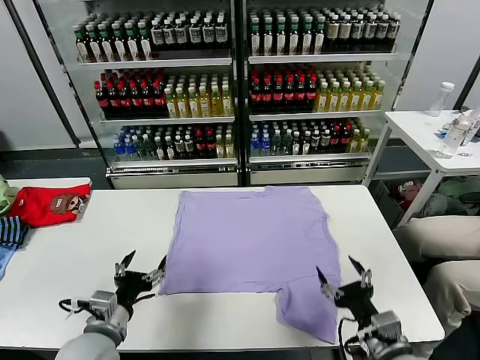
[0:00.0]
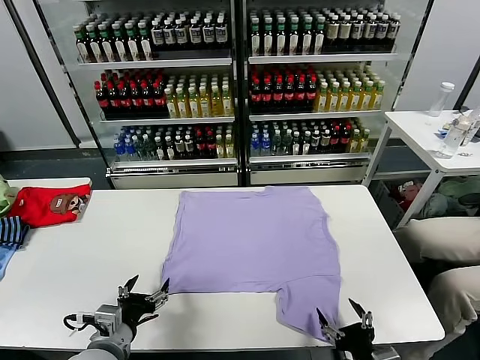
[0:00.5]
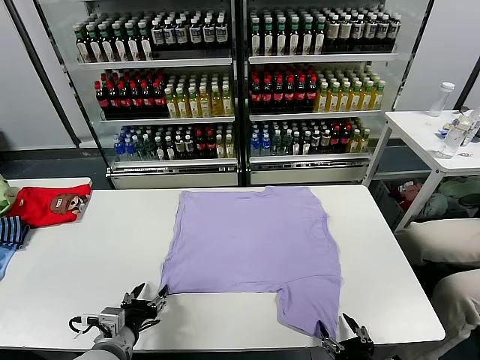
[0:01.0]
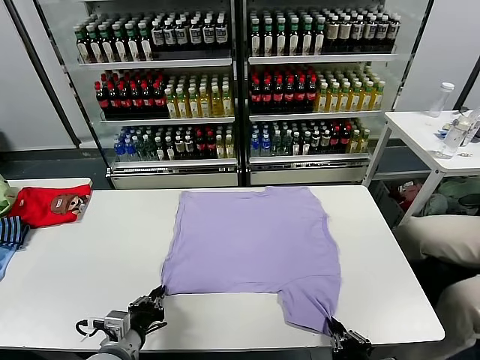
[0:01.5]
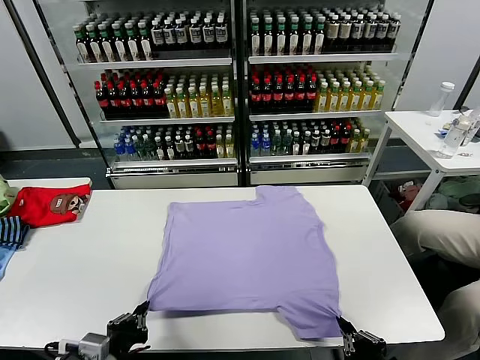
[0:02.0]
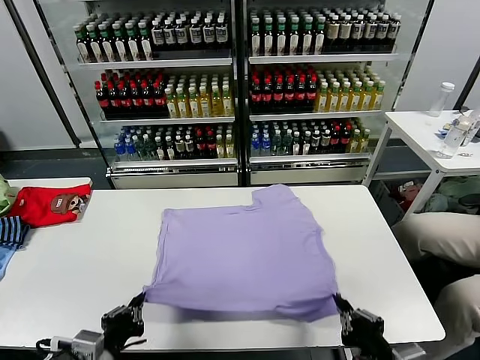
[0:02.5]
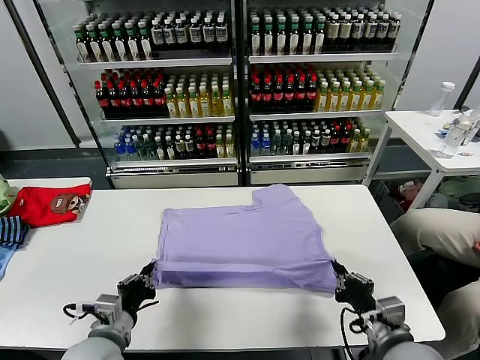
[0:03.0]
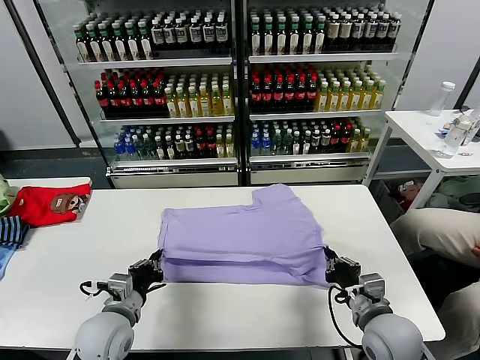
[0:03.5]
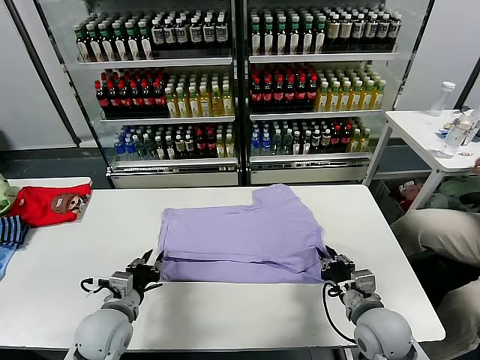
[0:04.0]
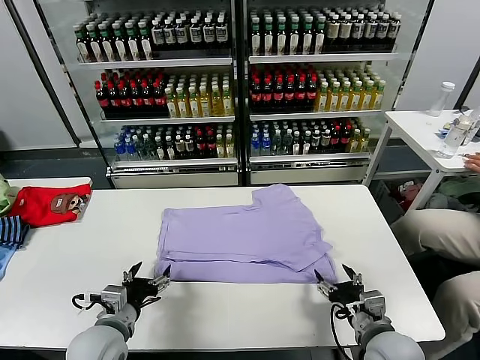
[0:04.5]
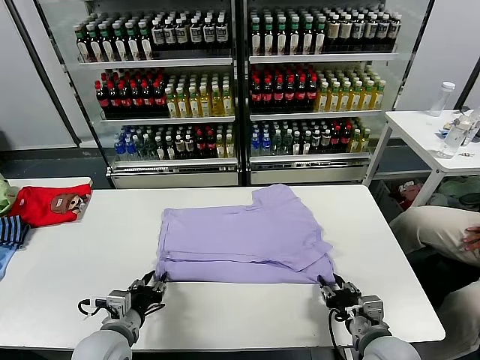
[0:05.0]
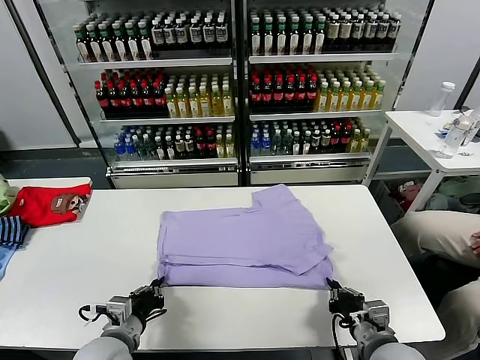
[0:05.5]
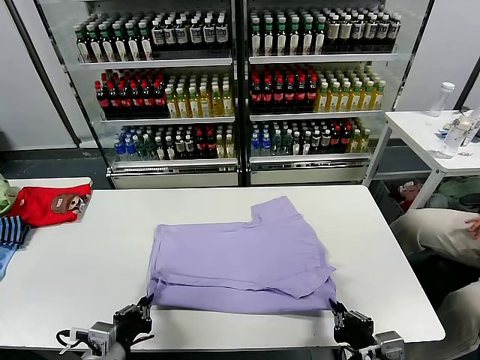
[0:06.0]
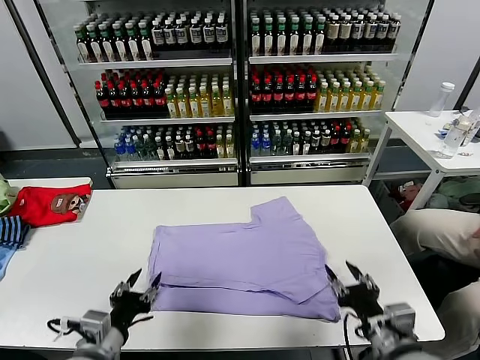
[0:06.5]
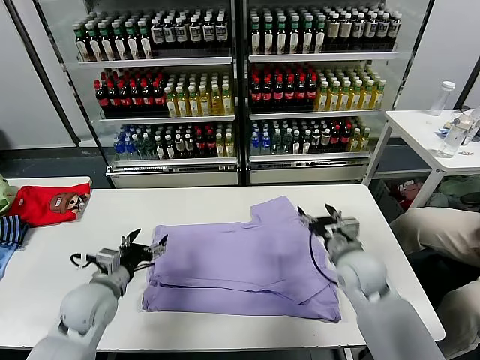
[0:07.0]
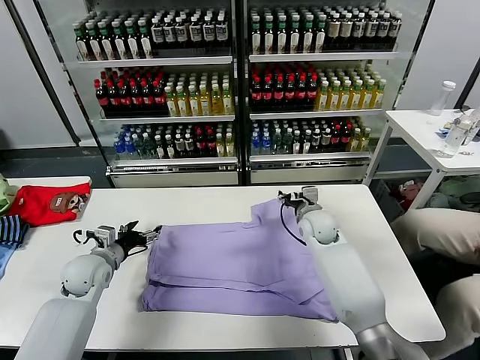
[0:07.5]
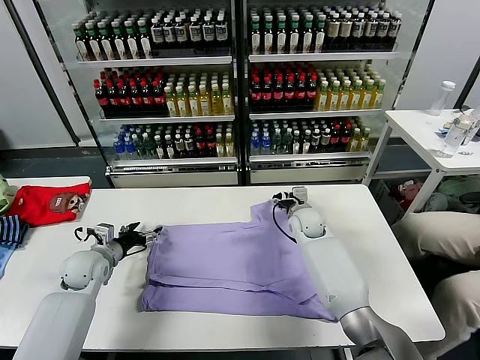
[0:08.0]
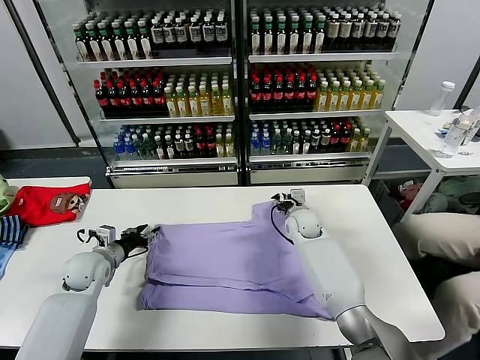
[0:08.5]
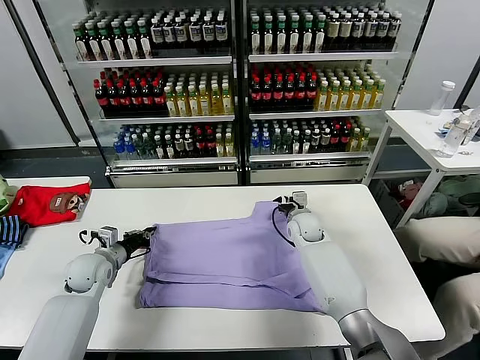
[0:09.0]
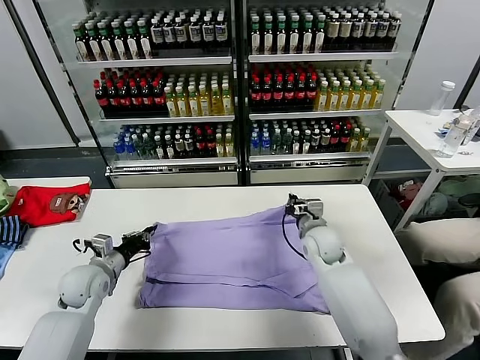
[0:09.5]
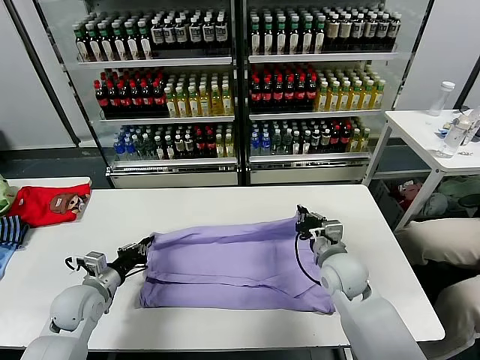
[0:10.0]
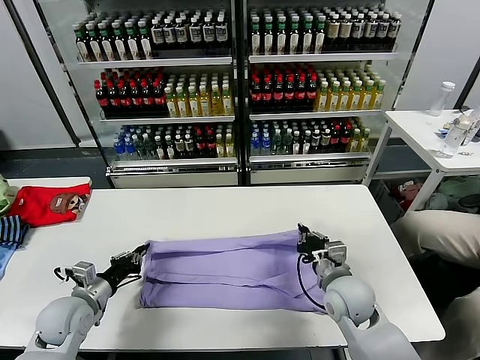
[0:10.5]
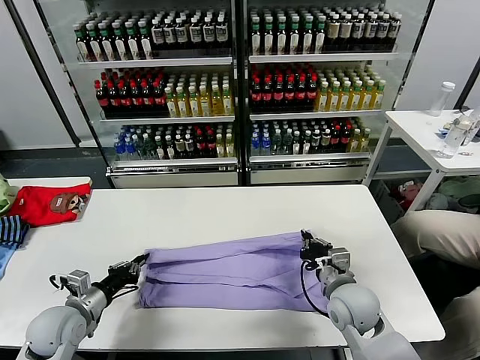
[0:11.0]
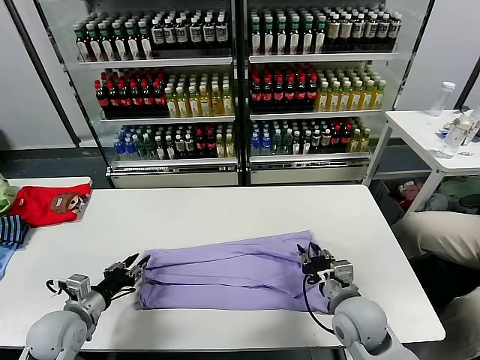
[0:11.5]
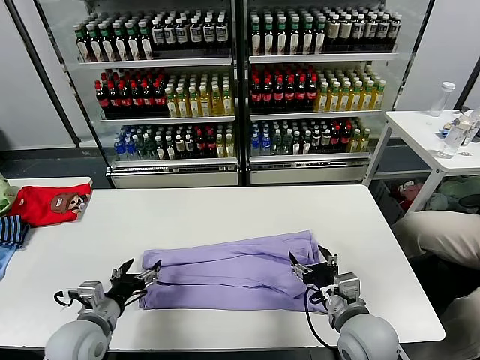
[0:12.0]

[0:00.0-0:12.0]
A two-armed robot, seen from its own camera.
Task of the whole recording: fold and organize the clothes.
Step, 0:00.0 to 0:01.5: use both grippers simultaneously to clamp the lower edge of the clothing fabric.
Step, 0:02.0 to 0:04.0: use both grippers to drag the lower edge of the fabric forward and fold it over the upper edge.
Step, 0:04.5 to 0:06.5: Drag the clothes downward with both gripper.
Step, 0:07.0 to 0:09.0: use both grippers simultaneously to clamp the upper edge of the clothing fabric.
Step, 0:09.5 to 0:11.5: use both grippers to drag the upper edge of the fabric backward and fold it over the lower edge.
0:02.0 to 0:04.0: The two grippers go roughly 15 cm forward. The right gripper opens up; the left gripper opens its fingers.
0:04.0 to 0:06.0: Both grippers travel together backward, approximately 10 cm. The right gripper opens, then closes once more, while the left gripper closes its fingers.
0:06.0 to 0:08.0: The left gripper moves forward and to the left, some 30 cm, and opens, while the right gripper heads forward, covering roughly 40 cm, and opens its fingers.
0:08.0 to 0:10.0: The right gripper shifts some 20 cm backward, and closes; the left gripper is displaced backward by roughly 10 cm, and closes.
0:10.0 to 0:12.0: The left gripper travels backward by some 10 cm, and opens its fingers. Meanwhile the right gripper travels backward by approximately 15 cm, and opens up.

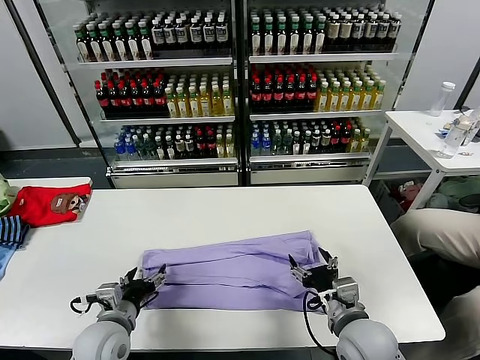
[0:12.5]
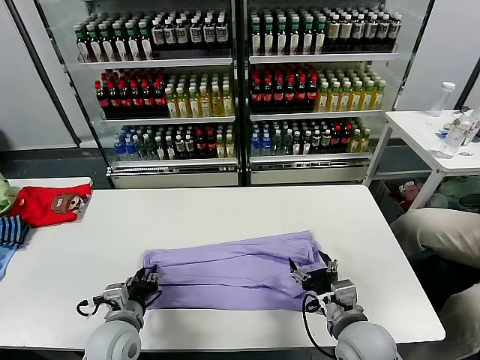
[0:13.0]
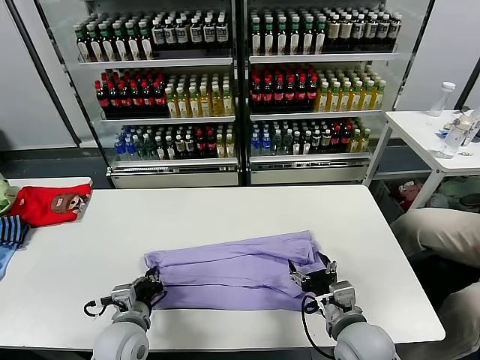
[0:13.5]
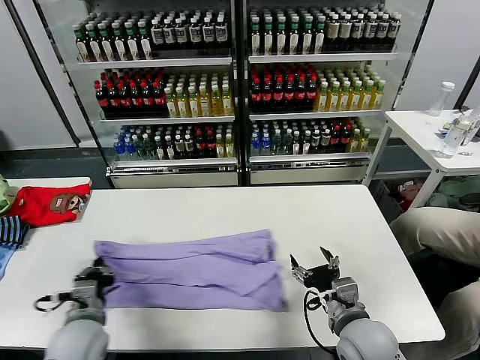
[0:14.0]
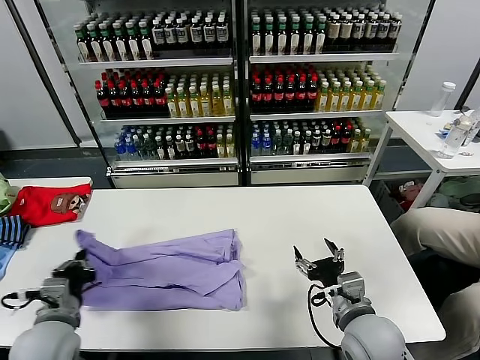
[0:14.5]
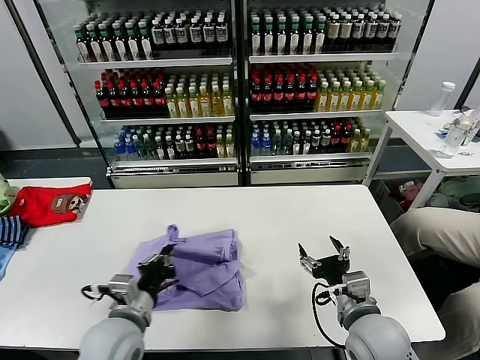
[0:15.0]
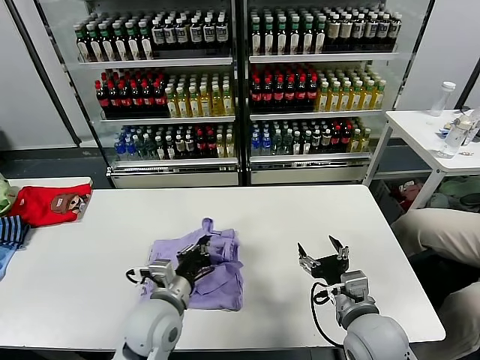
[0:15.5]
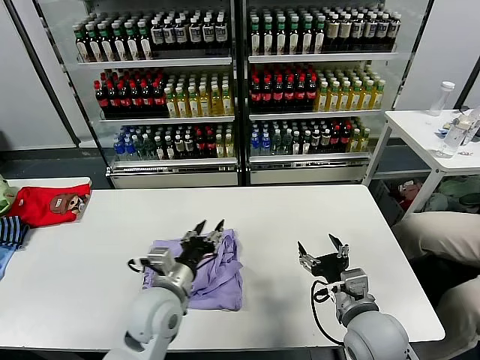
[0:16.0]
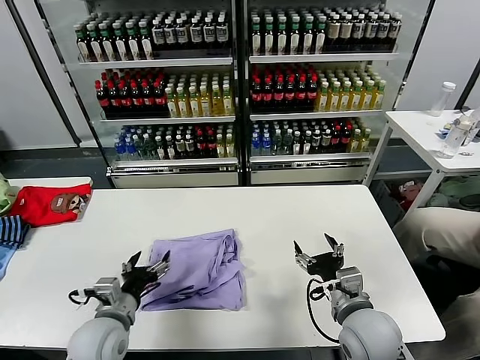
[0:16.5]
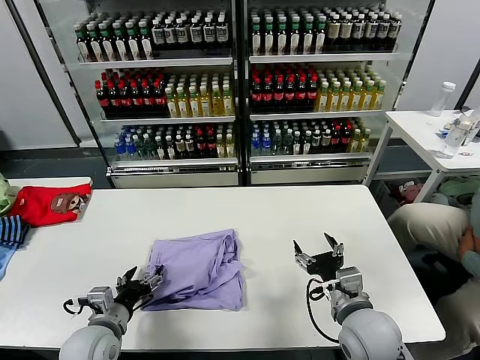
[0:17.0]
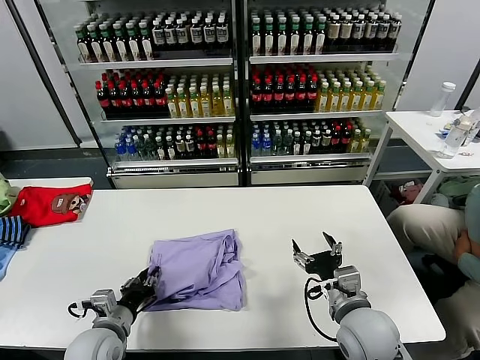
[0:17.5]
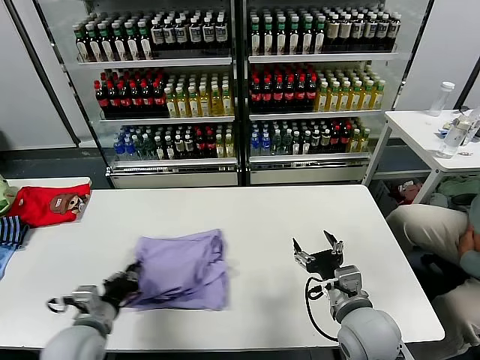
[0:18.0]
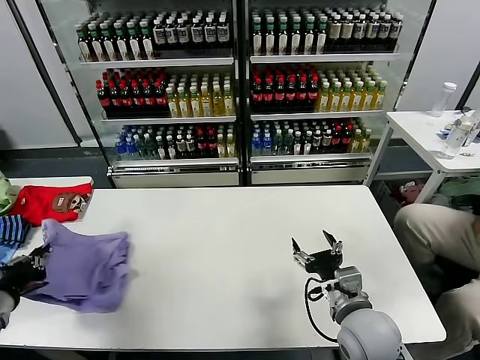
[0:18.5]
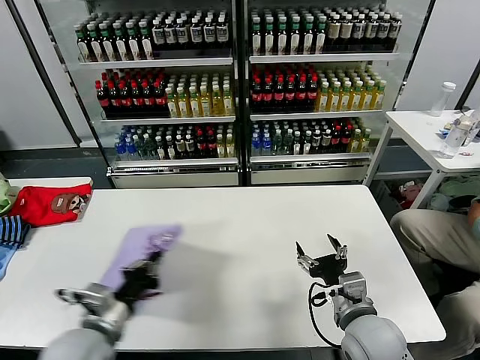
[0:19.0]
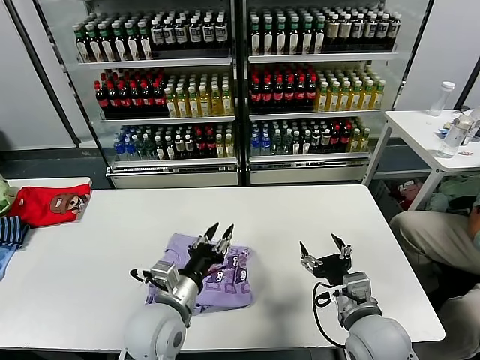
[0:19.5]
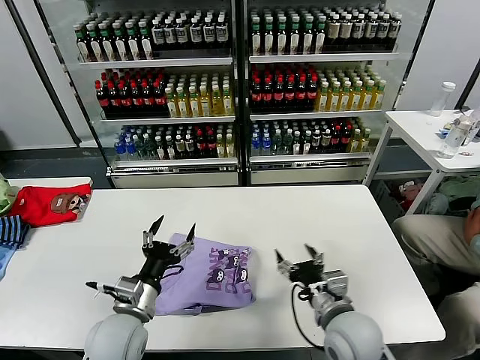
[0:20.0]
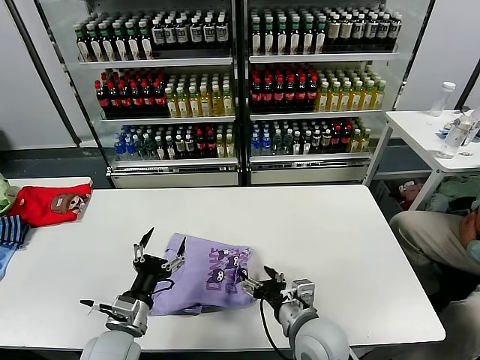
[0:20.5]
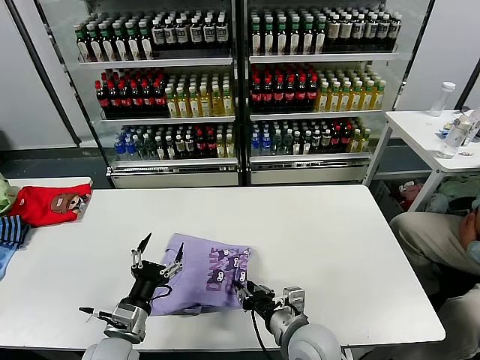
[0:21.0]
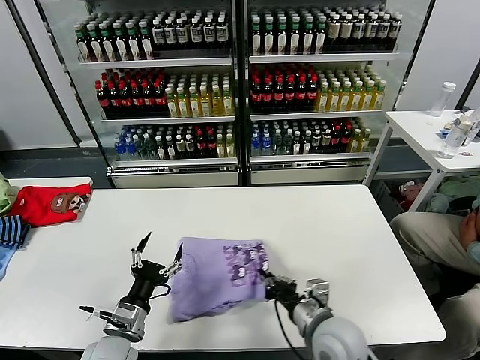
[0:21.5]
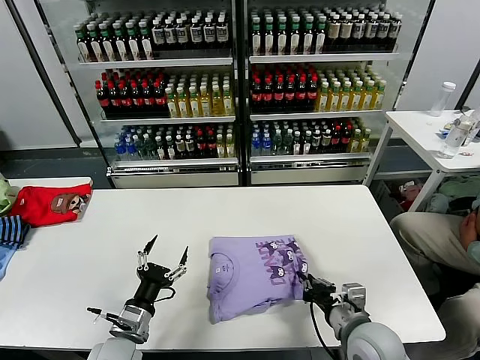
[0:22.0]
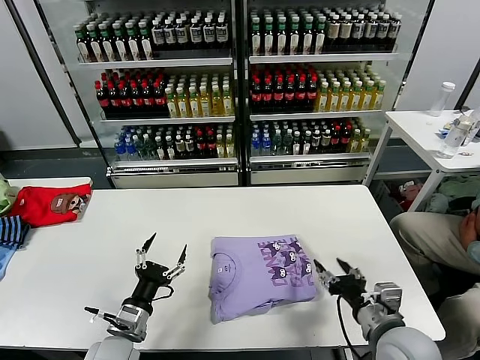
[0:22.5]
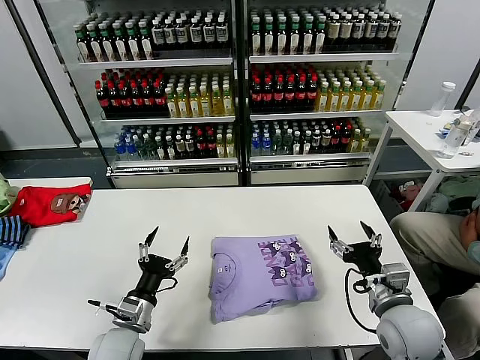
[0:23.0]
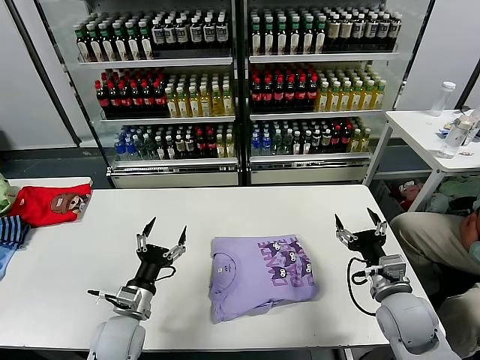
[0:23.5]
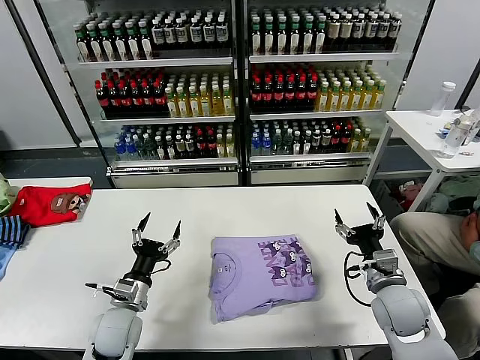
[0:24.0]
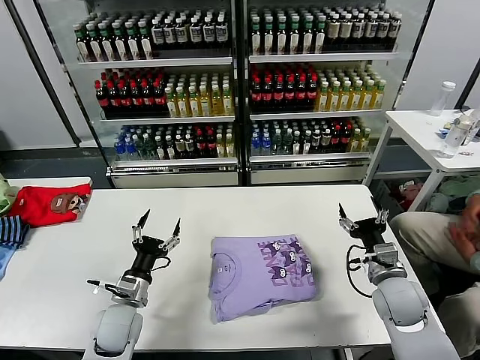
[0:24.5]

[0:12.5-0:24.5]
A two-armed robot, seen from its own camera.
Task of the whole recording: fold and organize the clothes.
Step, 0:12.5 to 0:13.5: use the left gripper to clamp the left edge of the fabric.
Step, 0:14.0 to 0:16.0: use the left gripper to drag the left edge of the fabric to the left and folds it over the right edge.
Step, 0:16.5 to 0:19.5: Flip the folded clothes over with left gripper.
Step, 0:20.0 to 0:22.5: Drag the clothes to the center of the table.
0:12.5 to 0:14.5: The left gripper shifts about 10 cm to the left and upward, and closes its fingers.
0:14.5 to 0:16.5: The left gripper moves to the right, about 10 cm, and opens up.
0:16.5 to 0:18.5: The left gripper goes approximately 20 cm to the left and upward, and closes up.
0:18.5 to 0:20.5: The right gripper shifts roughly 5 cm to the left. Meanwhile the left gripper heads to the right and downward, covering some 25 cm, and opens its fingers.
0:20.5 to 0:22.5: The right gripper is displaced to the right by roughly 15 cm, and closes, then reopens.
0:22.5 to 0:24.5: The right gripper moves forward, about 10 cm, while the left gripper moves forward, some 5 cm.
